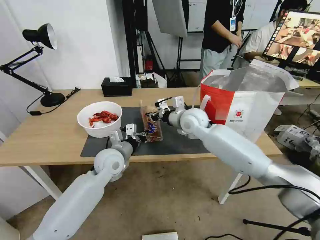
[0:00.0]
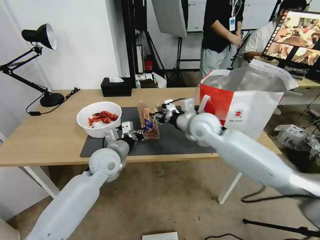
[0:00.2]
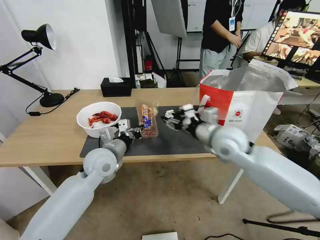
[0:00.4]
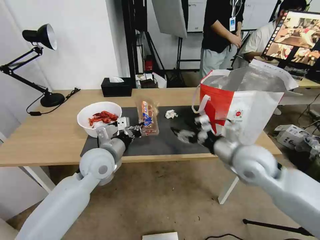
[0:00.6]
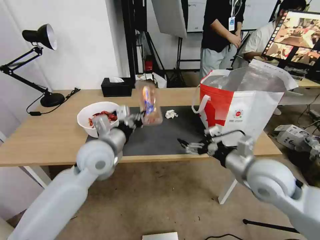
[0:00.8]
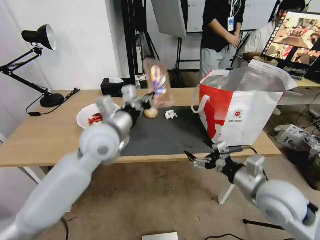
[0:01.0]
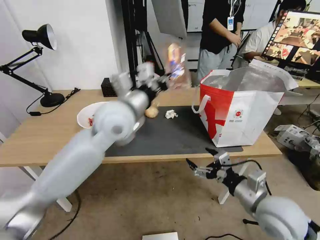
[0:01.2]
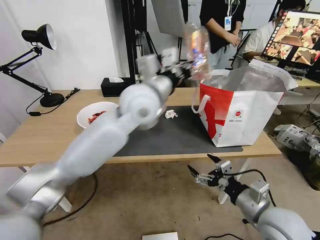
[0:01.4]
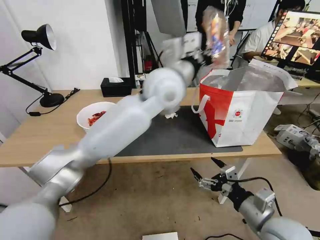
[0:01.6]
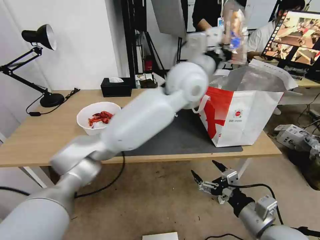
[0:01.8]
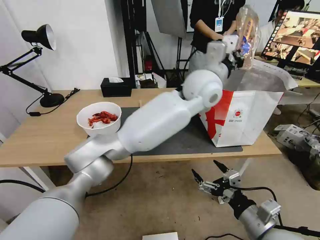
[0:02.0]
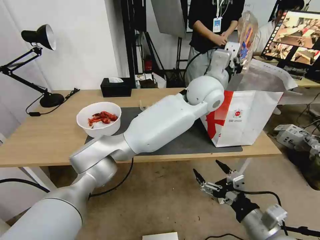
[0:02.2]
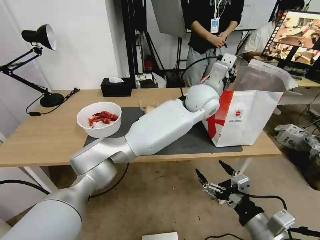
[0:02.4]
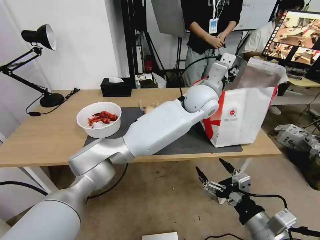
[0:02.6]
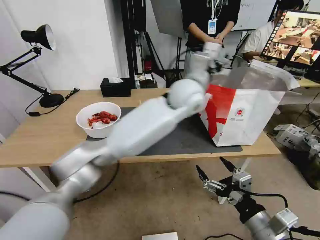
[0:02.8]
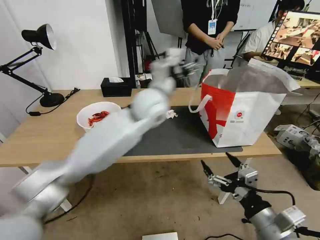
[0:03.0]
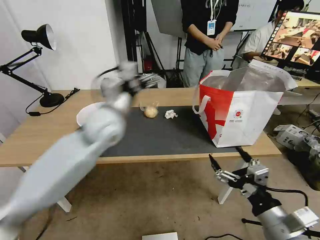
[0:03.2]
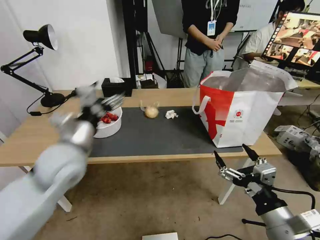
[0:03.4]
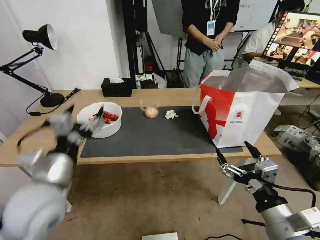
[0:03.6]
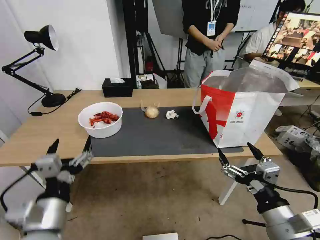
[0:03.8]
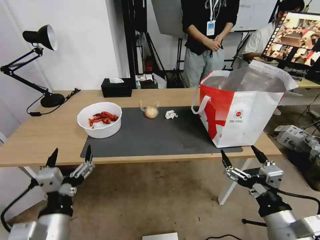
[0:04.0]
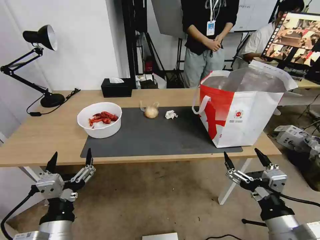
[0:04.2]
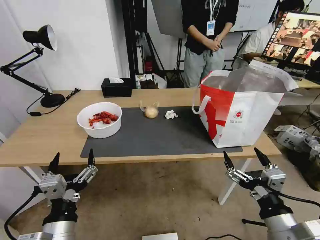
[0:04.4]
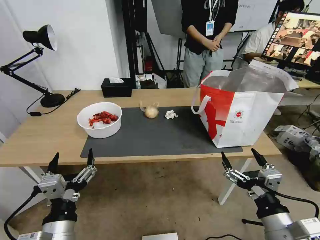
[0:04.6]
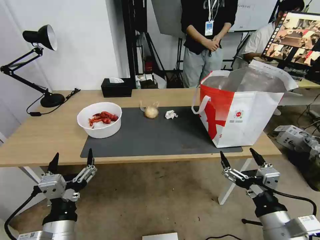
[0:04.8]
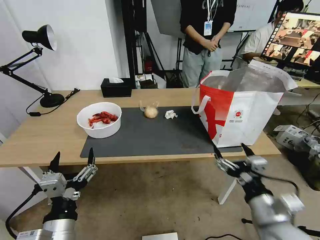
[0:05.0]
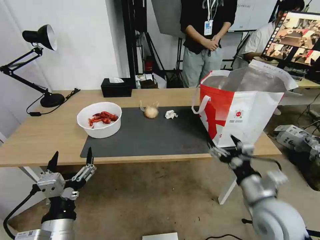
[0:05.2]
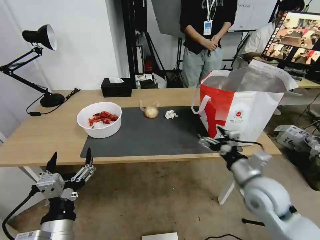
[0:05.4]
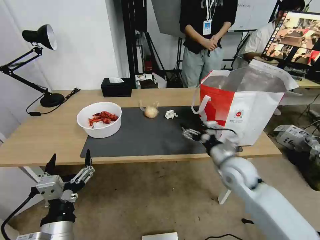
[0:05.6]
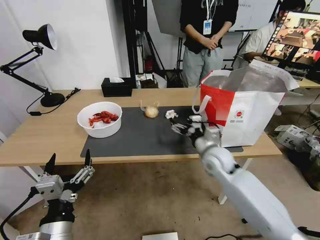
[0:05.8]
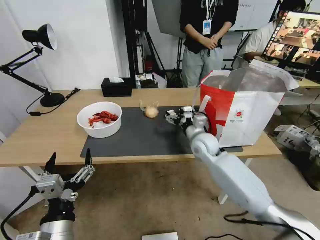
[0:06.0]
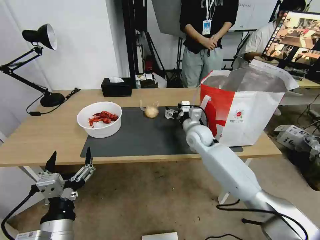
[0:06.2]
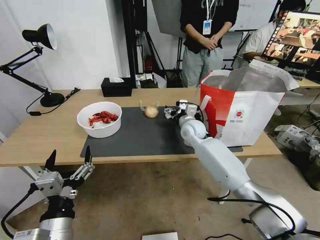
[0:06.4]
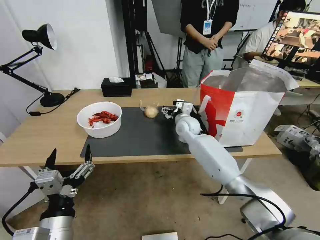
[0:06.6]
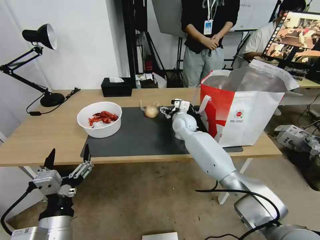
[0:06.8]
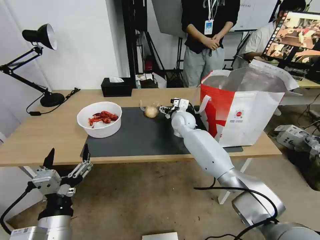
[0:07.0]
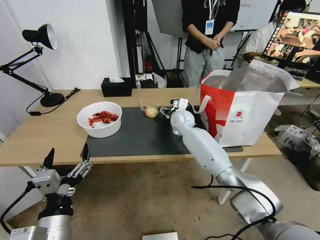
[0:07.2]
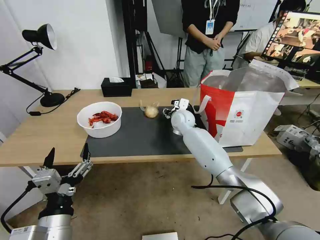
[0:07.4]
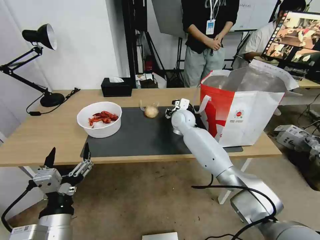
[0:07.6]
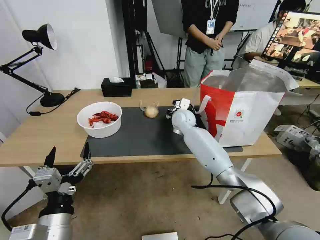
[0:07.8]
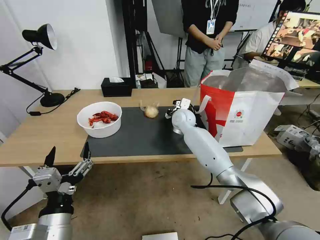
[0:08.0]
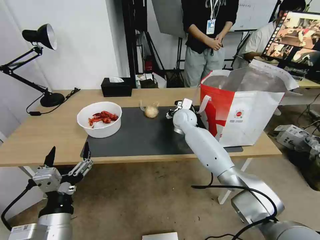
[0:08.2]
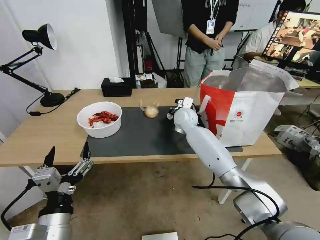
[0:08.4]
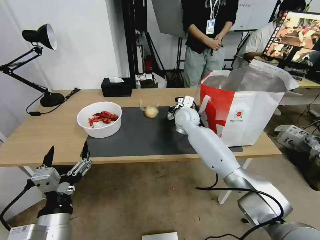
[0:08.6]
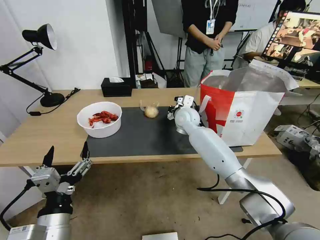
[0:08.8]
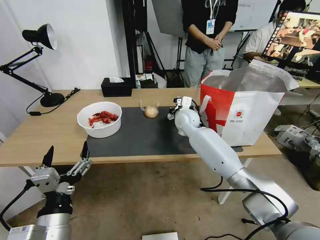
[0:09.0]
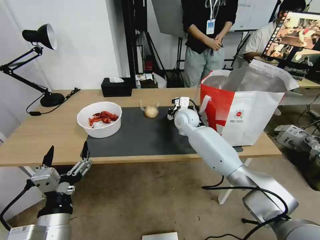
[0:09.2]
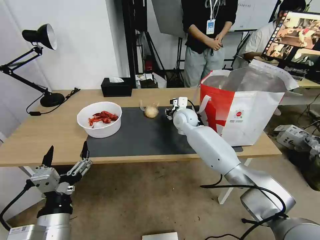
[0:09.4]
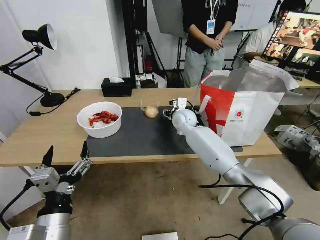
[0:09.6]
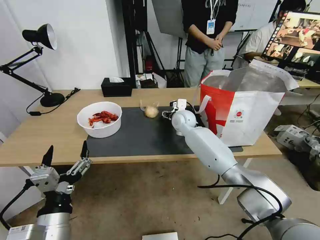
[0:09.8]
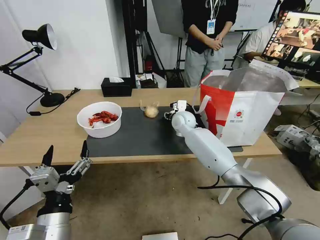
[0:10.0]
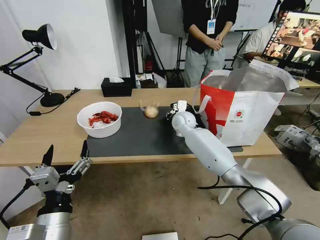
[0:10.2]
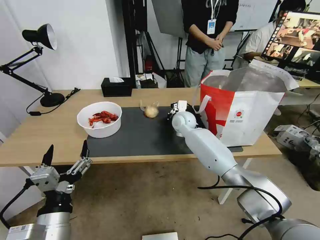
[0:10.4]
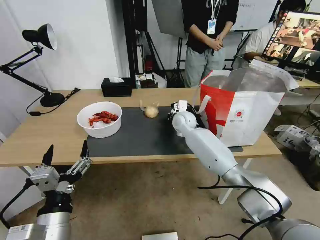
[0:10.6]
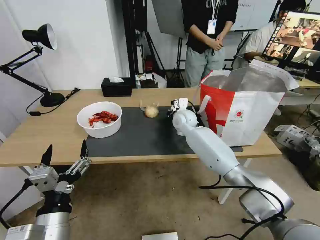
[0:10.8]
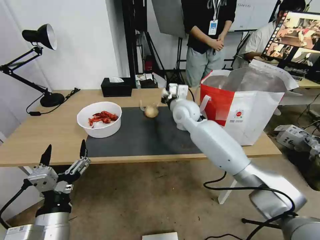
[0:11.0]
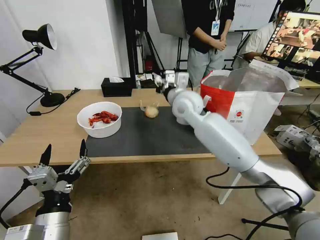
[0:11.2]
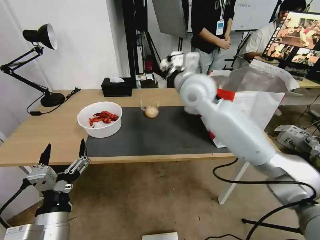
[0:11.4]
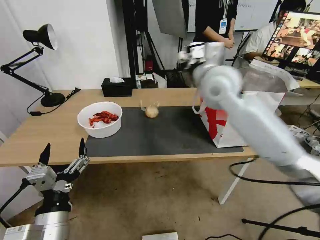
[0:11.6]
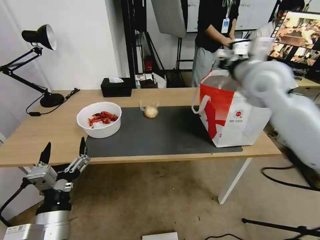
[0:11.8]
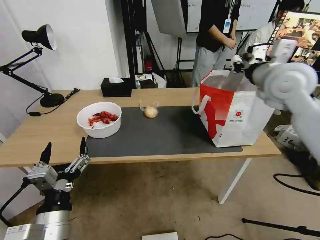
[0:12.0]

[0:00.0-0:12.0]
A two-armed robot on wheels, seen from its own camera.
Task of the whole recording: Pick up the trash from the table and place it into the takeout bag.
0:00.0 to 0:01.6: The right gripper goes approximately 40 cm backward and to the right, and opens its fingers, while the left gripper heads upward and to the right, covering approximately 30 cm.
0:01.6 to 0:03.0: The left gripper heads downward, covering roughly 5 cm, moves roughly 10 cm to the right and comes back, and opens.
0:03.0 to 0:04.4: The left gripper goes about 40 cm backward, to the left and downward.
0:04.4 to 0:06.0: The right gripper shifts roughly 35 cm forward.
0:06.0 to 0:07.6: The right gripper moves forward and to the left, approximately 15 cm, and closes its fingers.
0:07.6 to 0:09.0: The right gripper closes up.
0:09.0 to 0:10.4: The right gripper opens, then closes once more.
0:10.4 to 0:12.0: The right gripper is displaced upward, to the right and backward by about 35 cm.

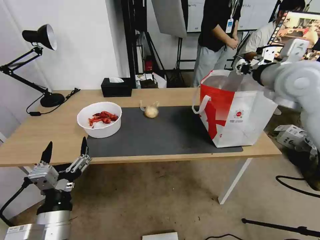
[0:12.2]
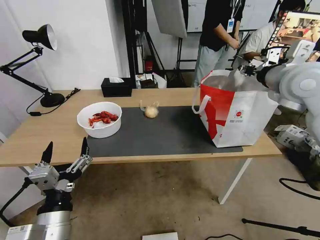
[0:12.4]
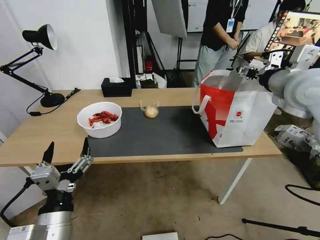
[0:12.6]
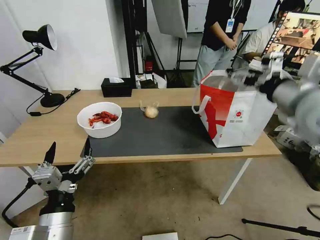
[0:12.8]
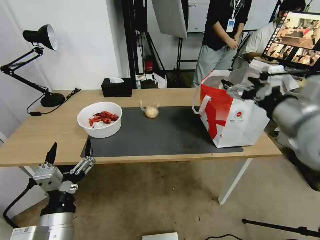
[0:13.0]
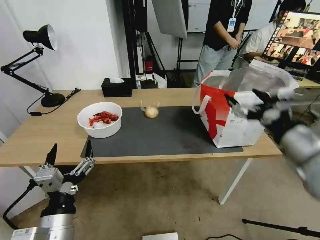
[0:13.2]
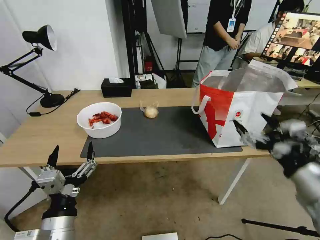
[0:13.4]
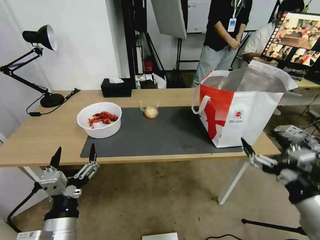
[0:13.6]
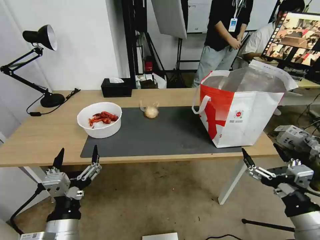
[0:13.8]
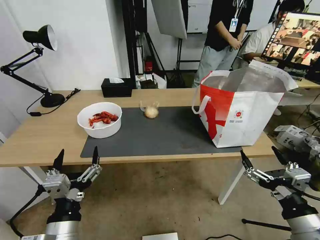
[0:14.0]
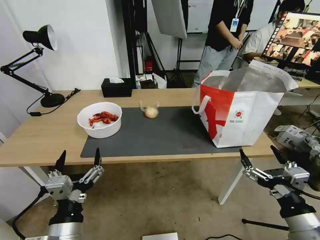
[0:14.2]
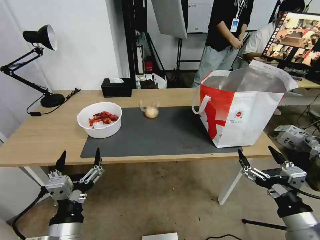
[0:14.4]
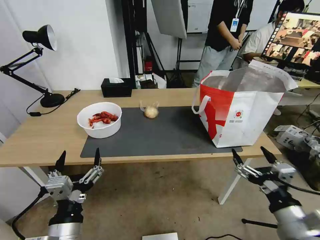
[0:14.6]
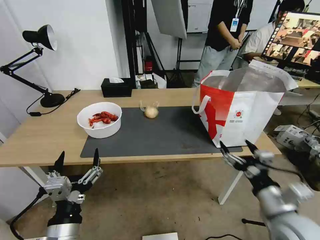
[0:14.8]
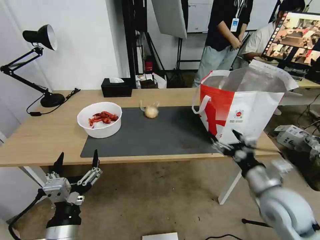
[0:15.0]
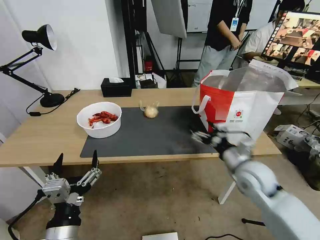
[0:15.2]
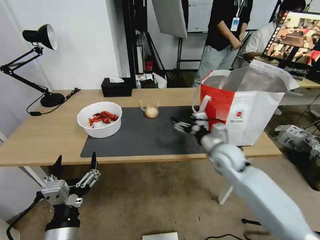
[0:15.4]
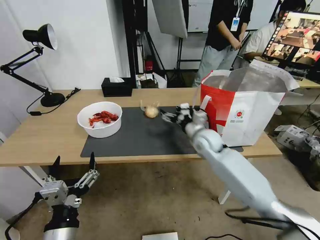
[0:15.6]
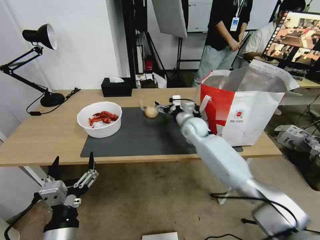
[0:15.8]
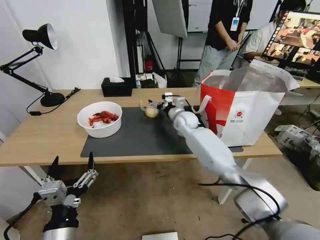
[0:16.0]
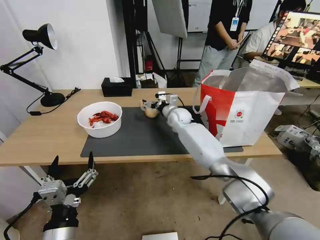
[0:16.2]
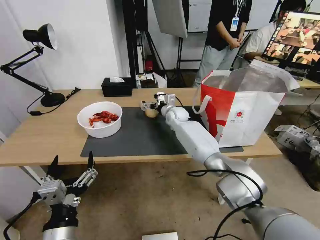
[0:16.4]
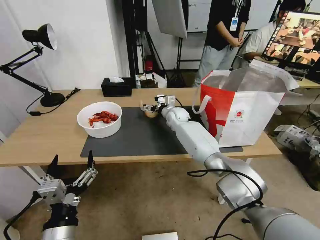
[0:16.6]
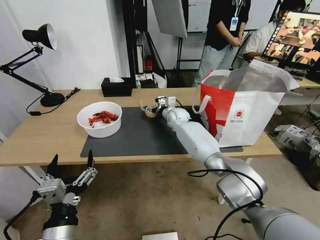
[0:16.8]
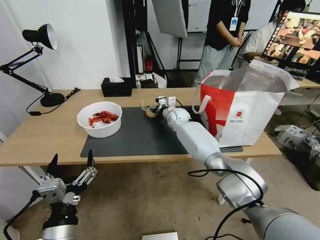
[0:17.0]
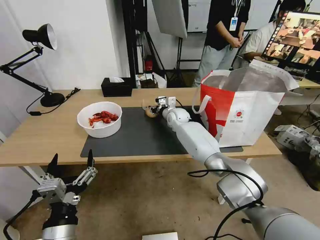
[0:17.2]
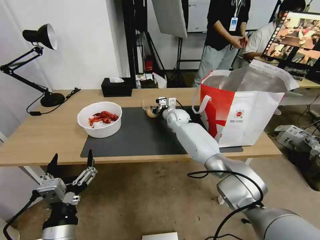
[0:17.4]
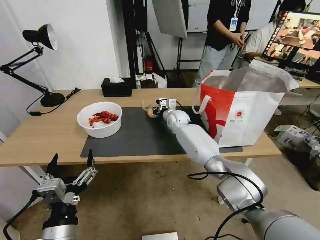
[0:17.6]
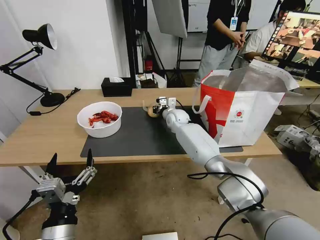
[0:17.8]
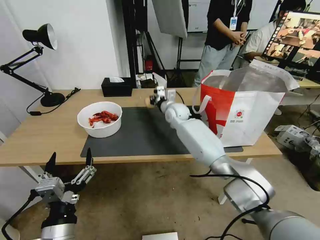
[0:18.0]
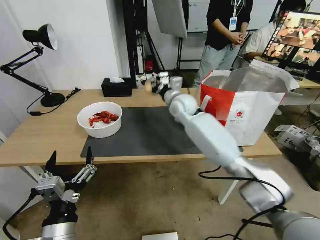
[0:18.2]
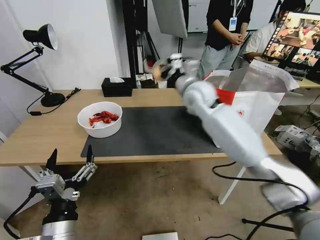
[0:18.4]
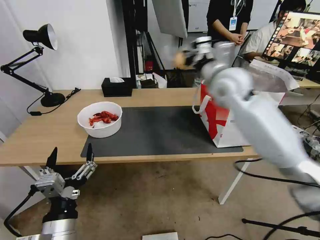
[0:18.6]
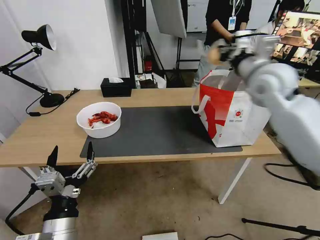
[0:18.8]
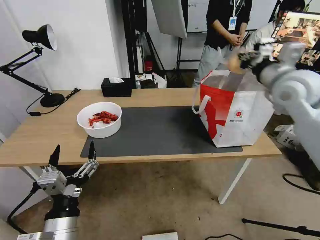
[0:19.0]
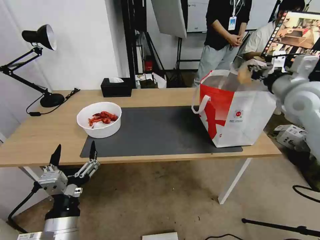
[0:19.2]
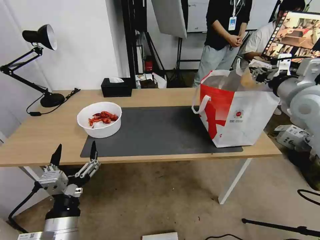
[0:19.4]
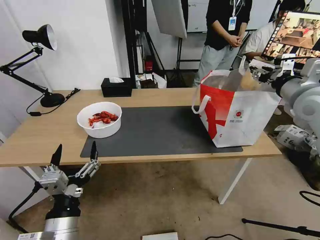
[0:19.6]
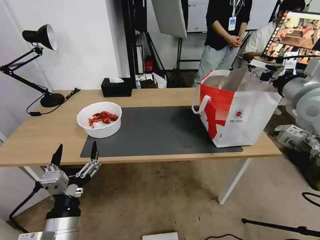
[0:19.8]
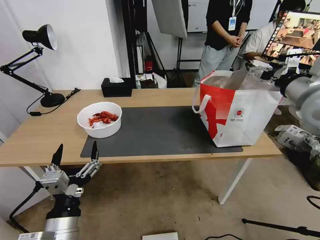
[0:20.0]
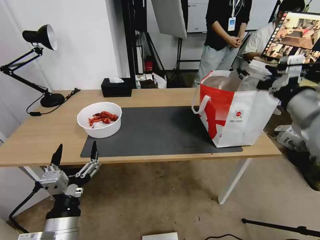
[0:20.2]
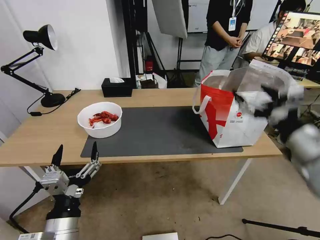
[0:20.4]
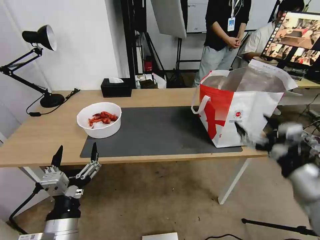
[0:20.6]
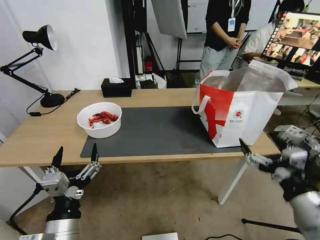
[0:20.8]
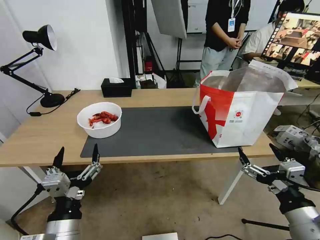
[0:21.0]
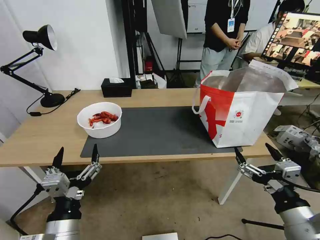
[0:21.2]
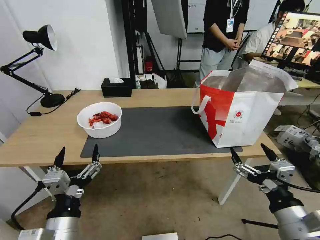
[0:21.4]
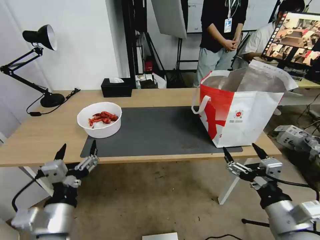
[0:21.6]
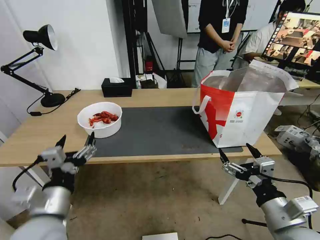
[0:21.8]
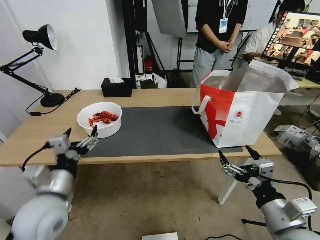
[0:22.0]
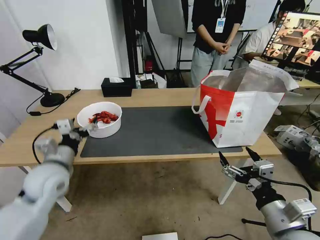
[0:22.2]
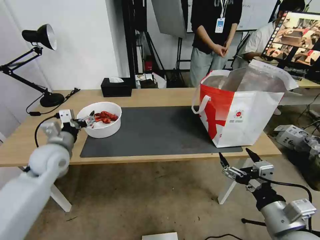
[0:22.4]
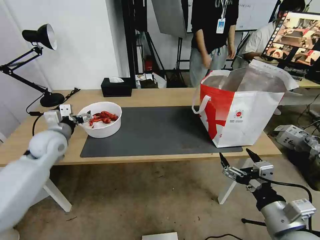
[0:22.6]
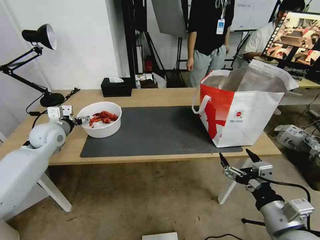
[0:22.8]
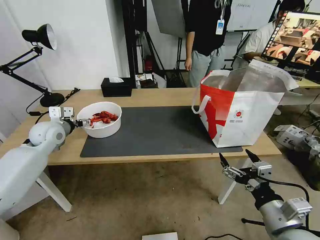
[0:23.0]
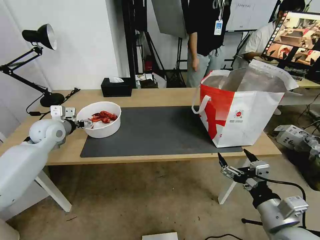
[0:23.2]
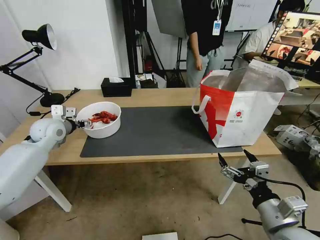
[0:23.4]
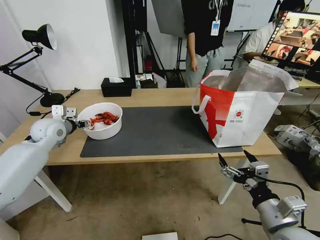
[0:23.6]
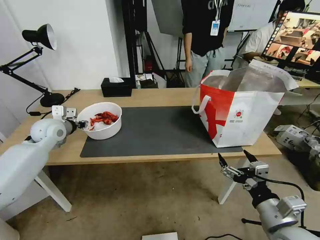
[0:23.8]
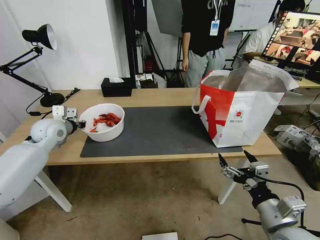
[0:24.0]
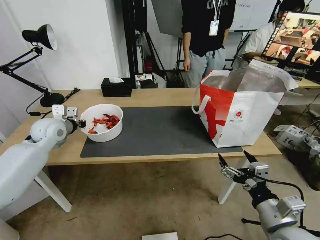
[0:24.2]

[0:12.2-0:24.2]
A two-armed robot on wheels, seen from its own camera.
Task of the whole recording: Pick up the trash from the table and place it into the takeout bag.
0:12.2 to 0:13.8: The right gripper travels backward and downward by some 40 cm, and opens up.
0:13.8 to 0:15.2: The right gripper heads forward, covering some 20 cm.
0:15.2 to 0:16.6: The right gripper moves forward and to the left, about 40 cm.
0:16.6 to 0:18.2: The right gripper travels upward and backward by about 10 cm, and closes up.
0:18.2 to 0:19.8: The right gripper travels to the right, backward and upward by approximately 35 cm, and opens.
0:19.8 to 0:21.2: The right gripper heads backward and downward, covering roughly 35 cm.
0:21.2 to 0:22.6: The left gripper shifts approximately 35 cm forward and to the left.
0:22.6 to 0:24.2: The left gripper is displaced forward by about 5 cm, and closes.
